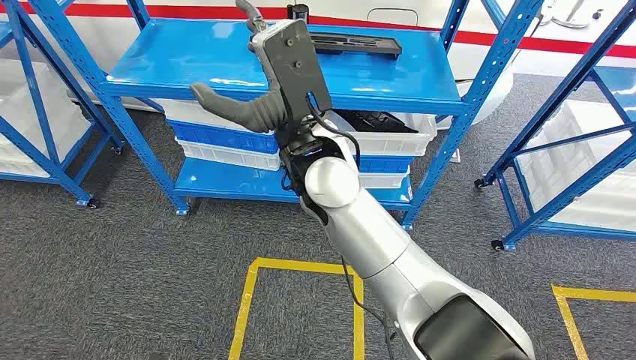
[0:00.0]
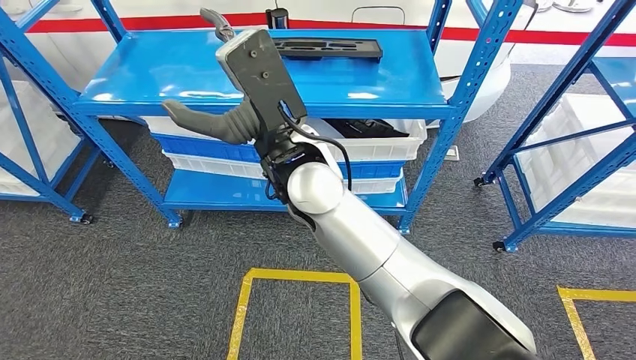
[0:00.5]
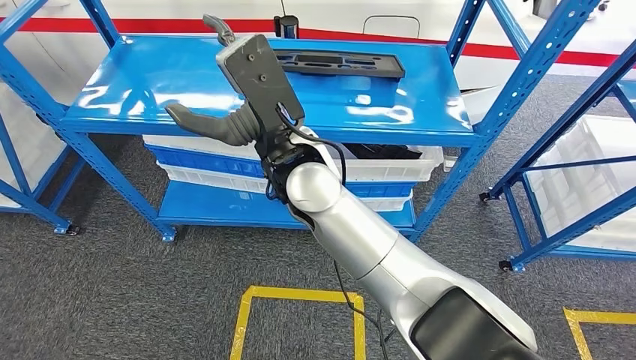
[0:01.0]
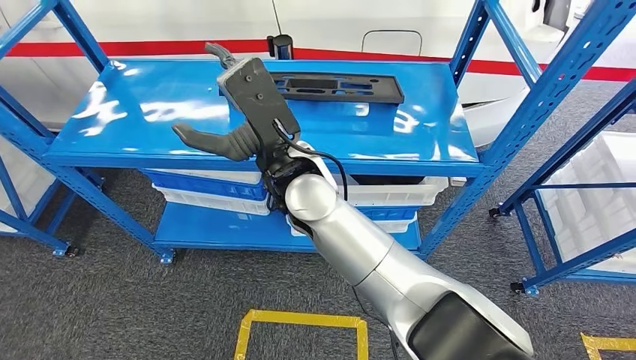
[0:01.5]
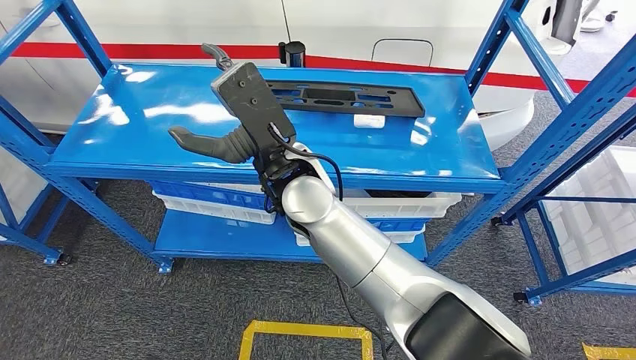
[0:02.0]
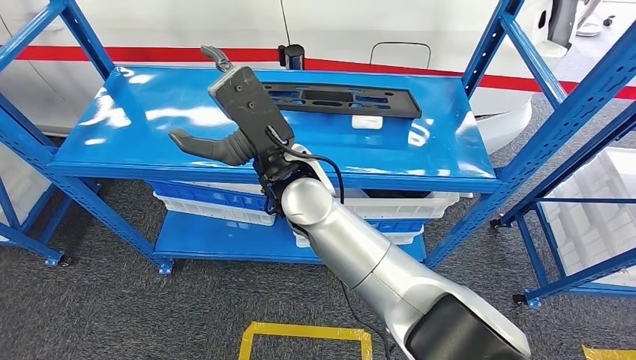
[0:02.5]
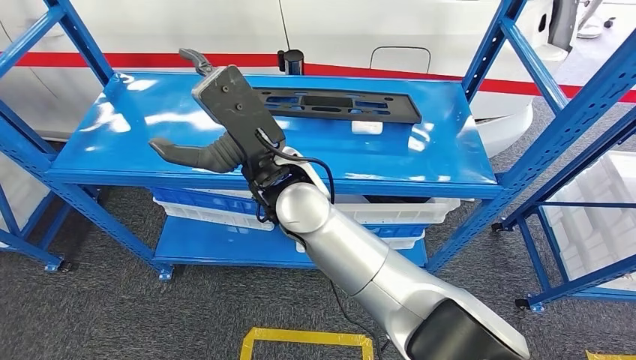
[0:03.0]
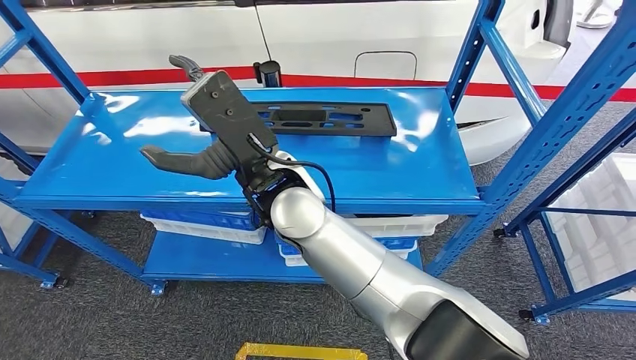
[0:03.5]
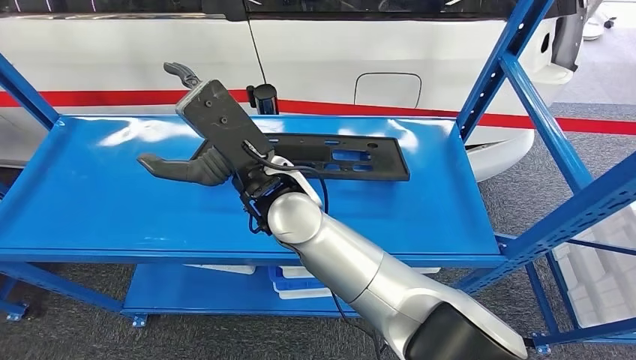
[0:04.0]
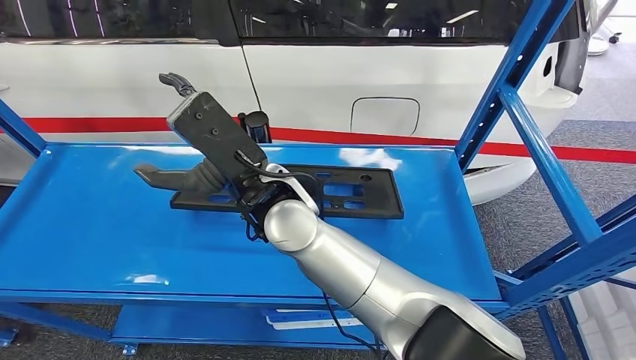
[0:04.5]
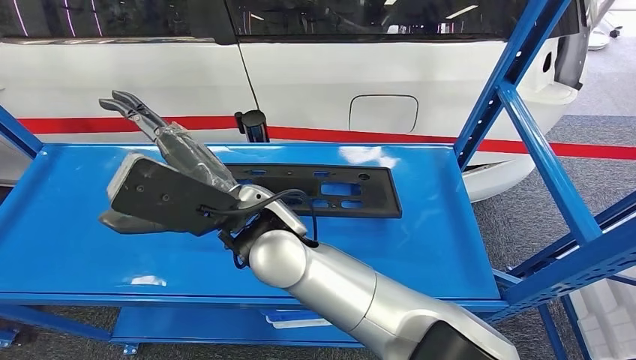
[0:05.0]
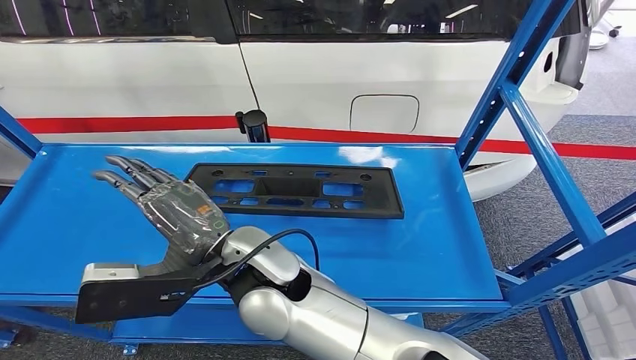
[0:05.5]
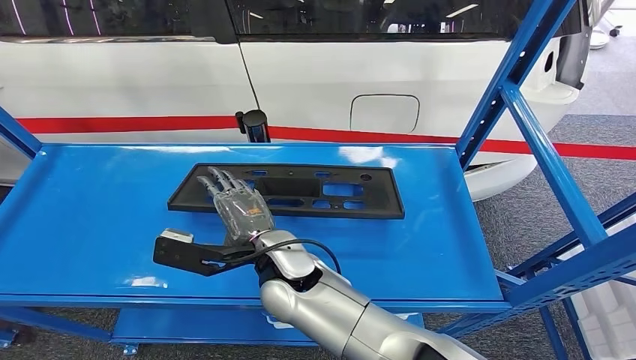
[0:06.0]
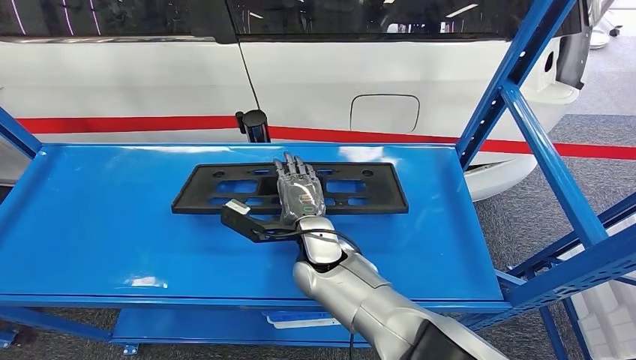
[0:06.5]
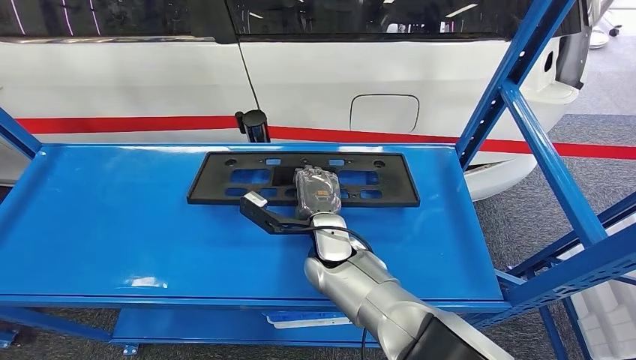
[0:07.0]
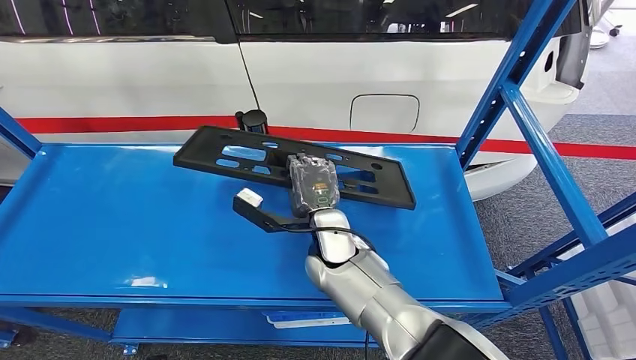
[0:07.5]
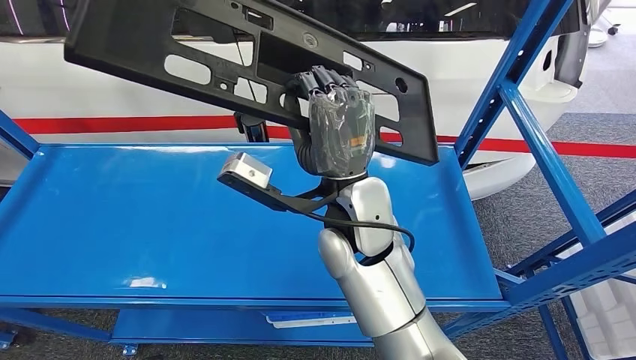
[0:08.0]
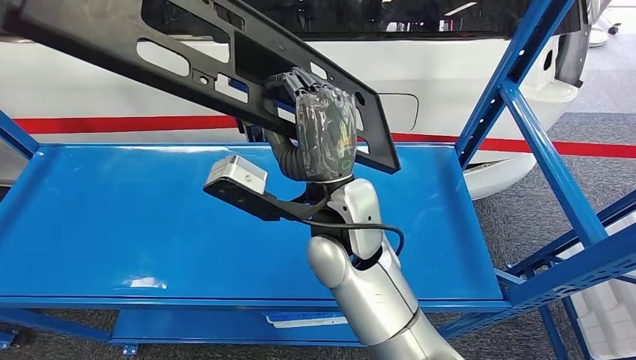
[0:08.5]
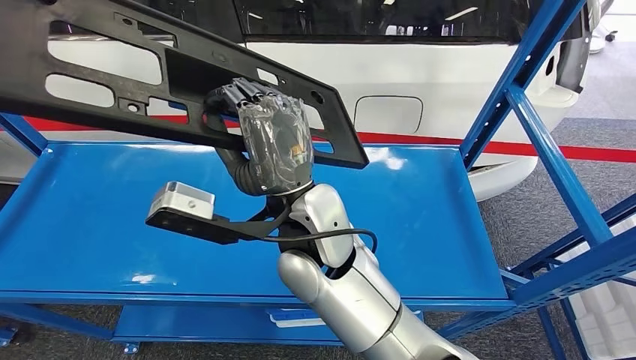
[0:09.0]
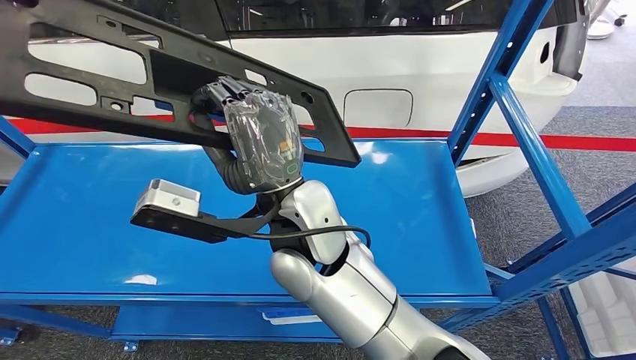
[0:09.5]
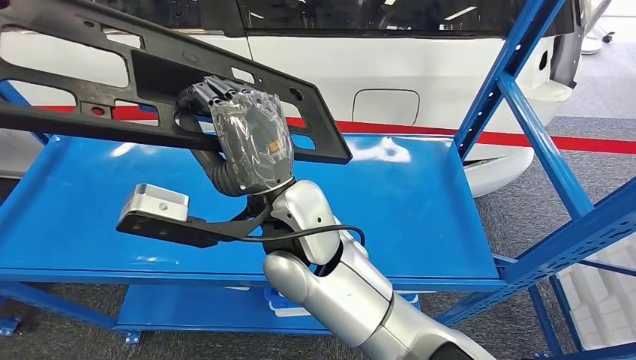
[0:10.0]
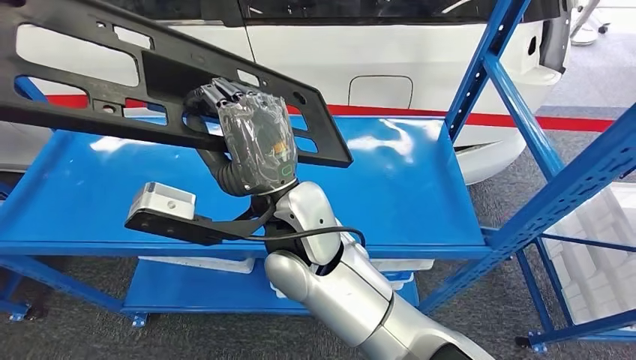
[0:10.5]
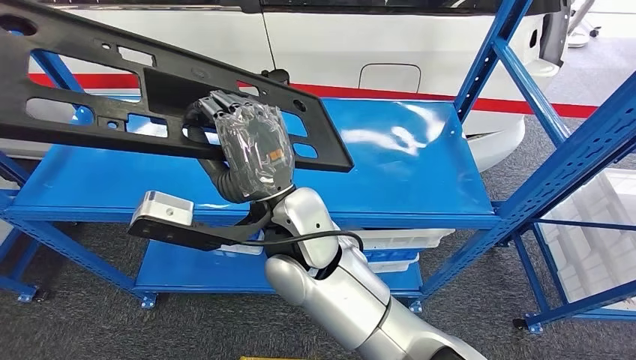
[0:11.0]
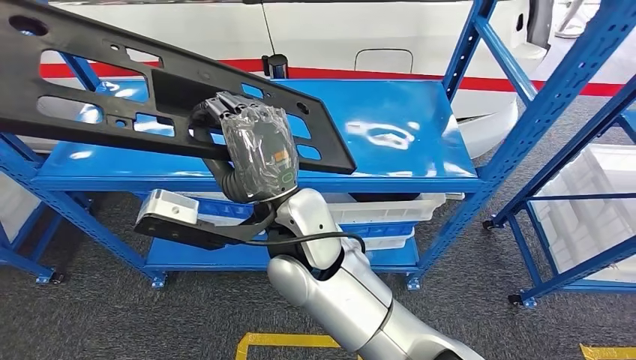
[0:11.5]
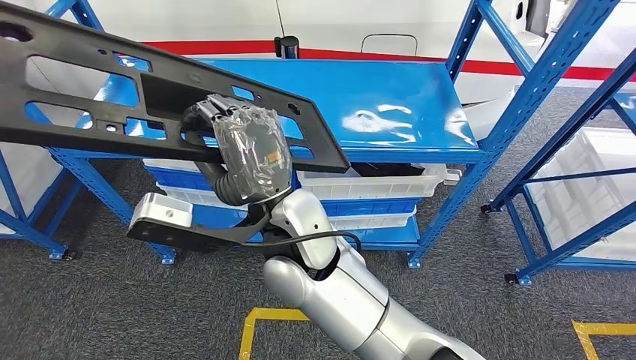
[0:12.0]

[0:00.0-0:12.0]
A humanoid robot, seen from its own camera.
Step, 0:00.0 to 0:11.5: Pick up the large material from the shelf.

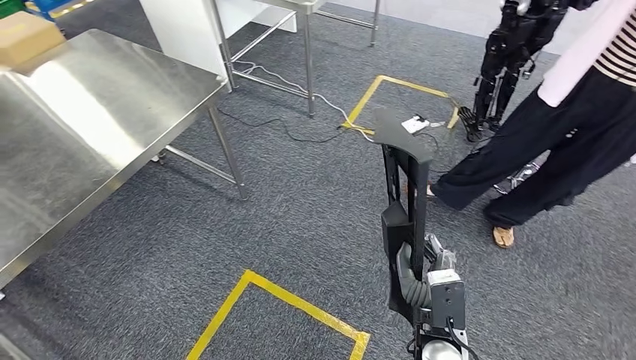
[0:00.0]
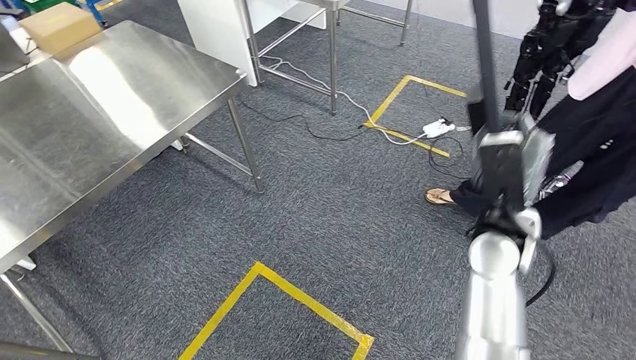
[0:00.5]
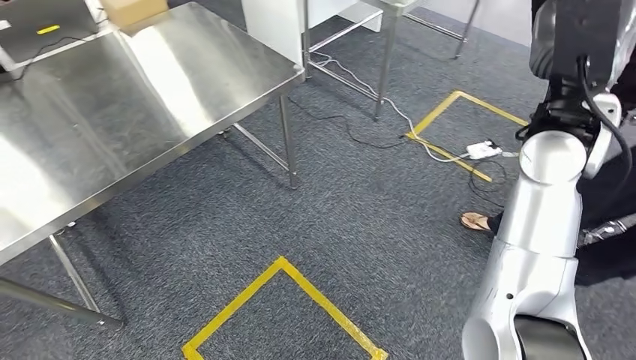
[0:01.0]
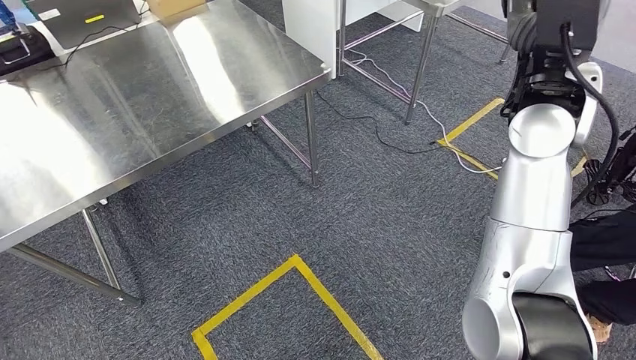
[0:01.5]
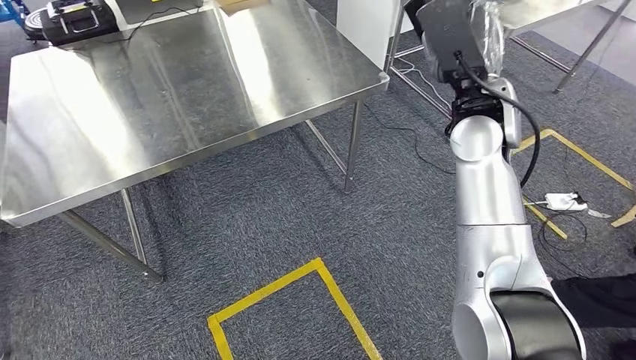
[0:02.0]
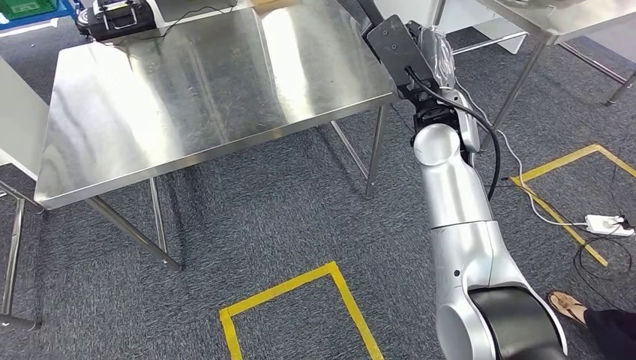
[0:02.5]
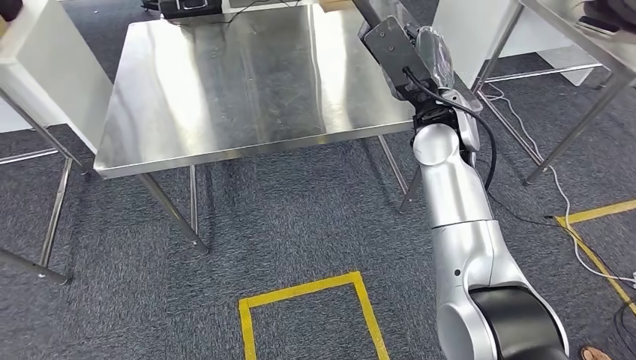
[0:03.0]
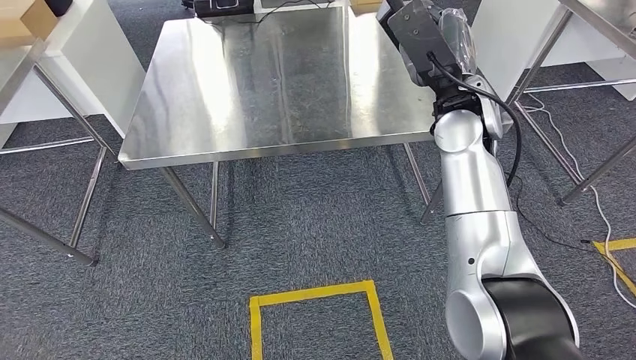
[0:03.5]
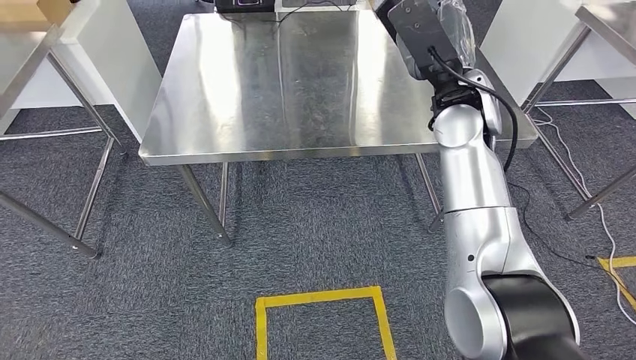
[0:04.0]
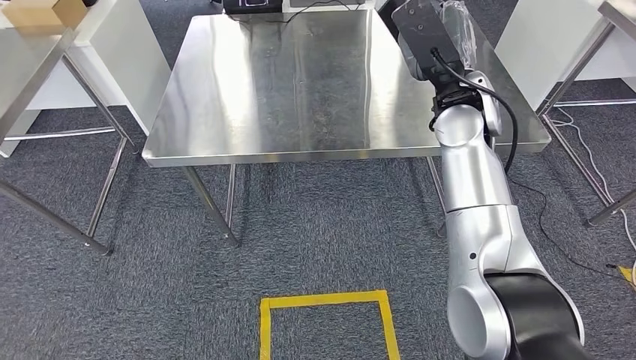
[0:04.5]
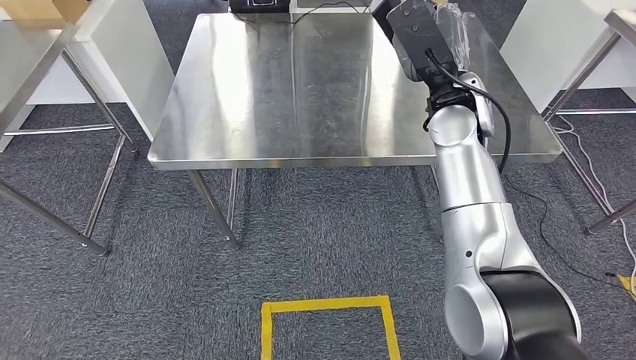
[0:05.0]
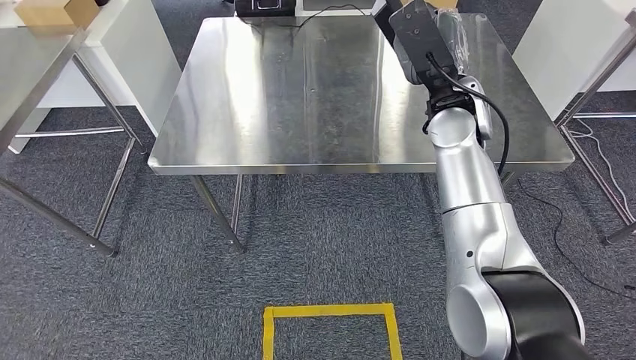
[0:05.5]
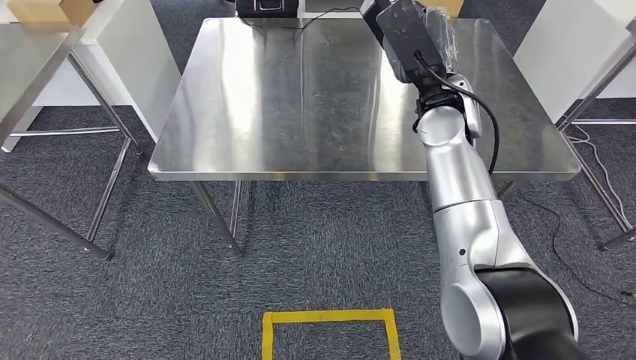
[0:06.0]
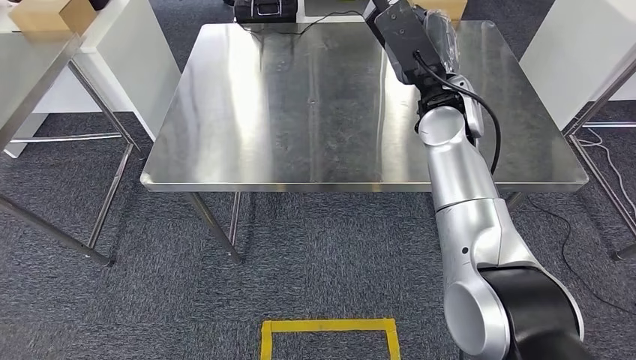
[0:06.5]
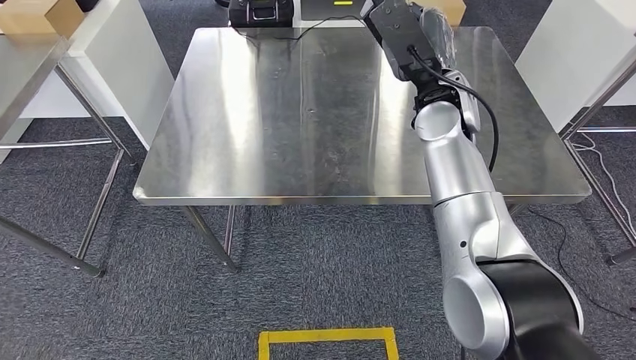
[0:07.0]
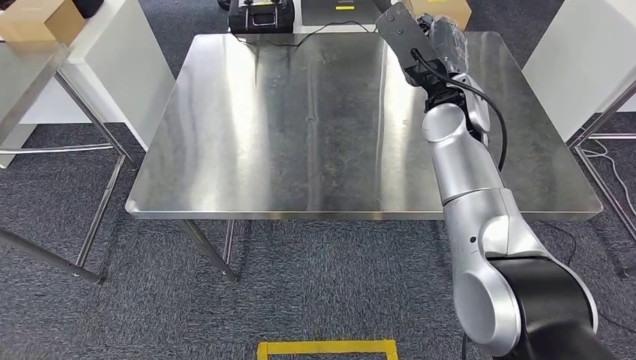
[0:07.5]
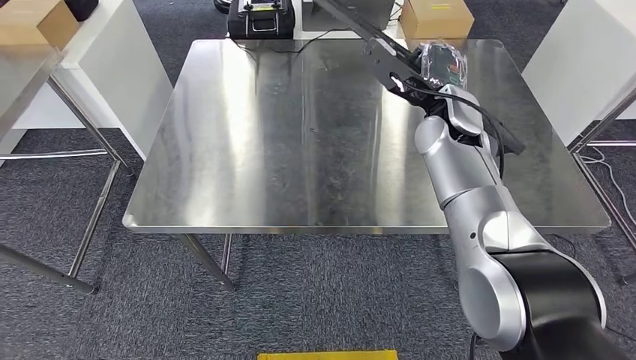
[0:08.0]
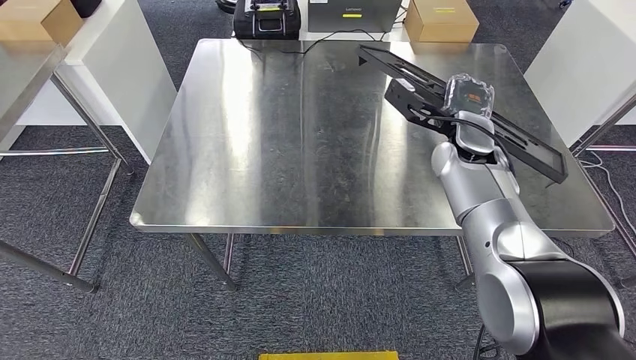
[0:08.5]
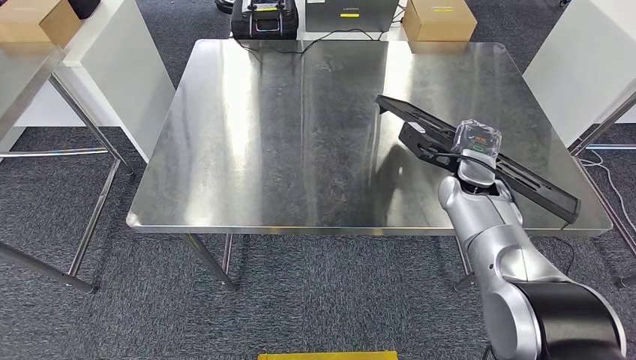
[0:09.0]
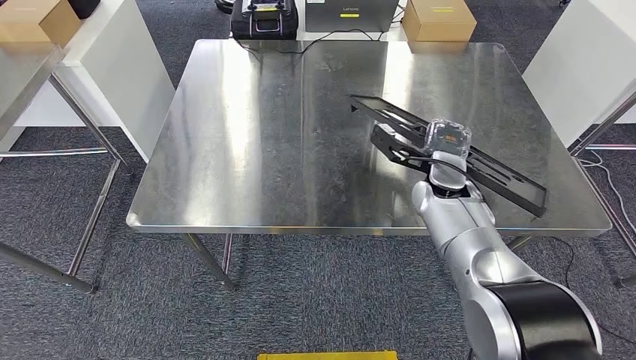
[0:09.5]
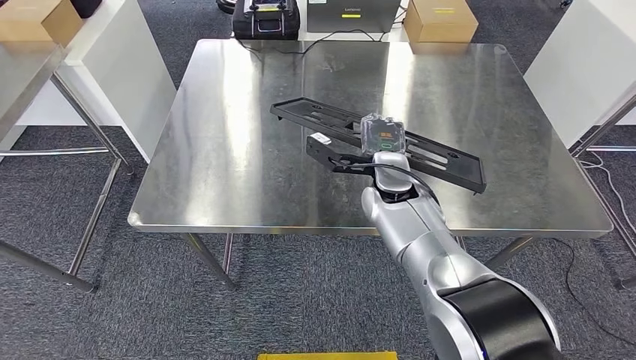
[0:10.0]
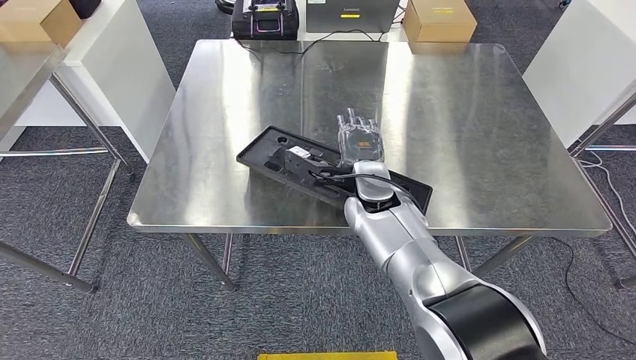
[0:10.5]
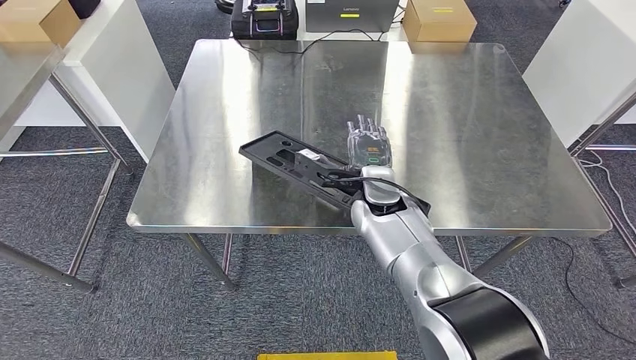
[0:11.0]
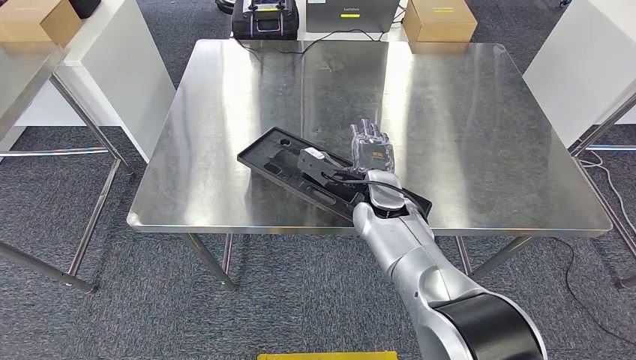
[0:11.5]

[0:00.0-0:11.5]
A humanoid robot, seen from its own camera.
Step, 0:00.0 to 0:04.5: Move the large material to the workbench.
0:09.5 to 0:11.5: The right hand moves to the left, roughly 10 cm.
